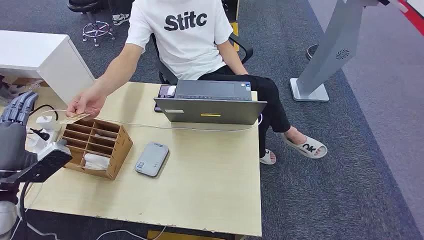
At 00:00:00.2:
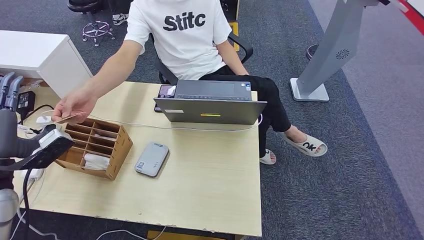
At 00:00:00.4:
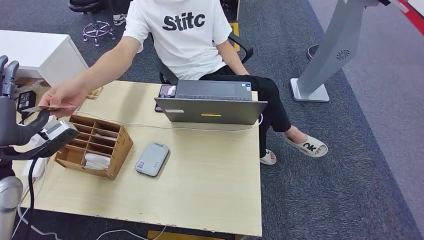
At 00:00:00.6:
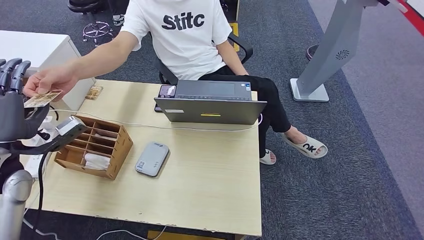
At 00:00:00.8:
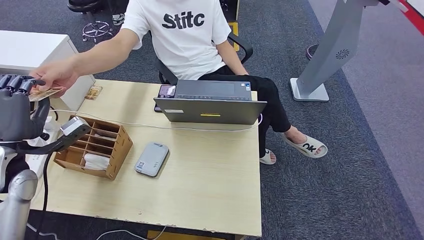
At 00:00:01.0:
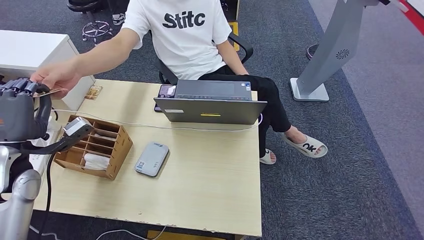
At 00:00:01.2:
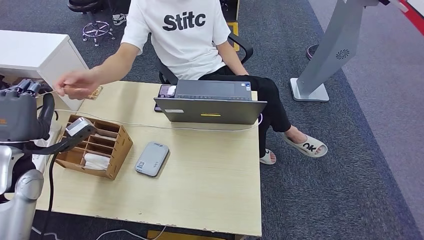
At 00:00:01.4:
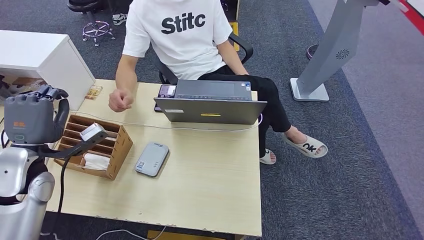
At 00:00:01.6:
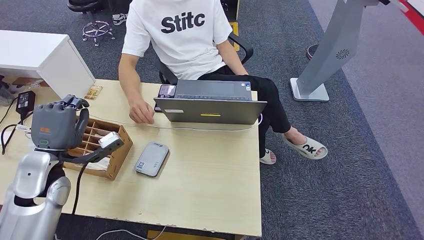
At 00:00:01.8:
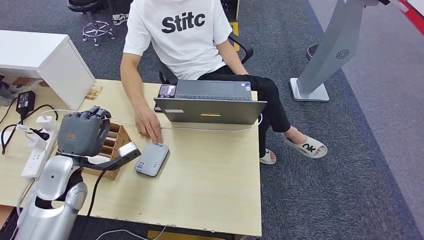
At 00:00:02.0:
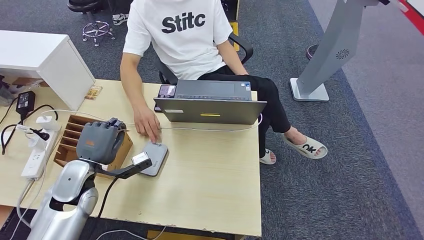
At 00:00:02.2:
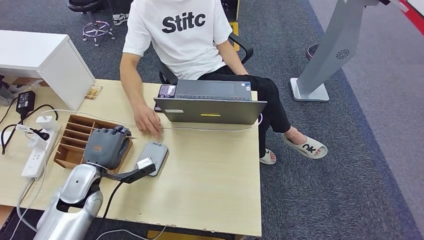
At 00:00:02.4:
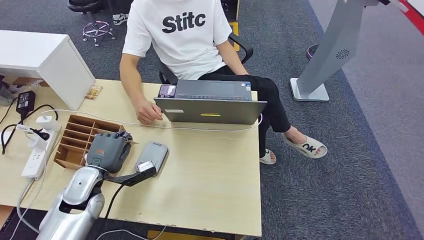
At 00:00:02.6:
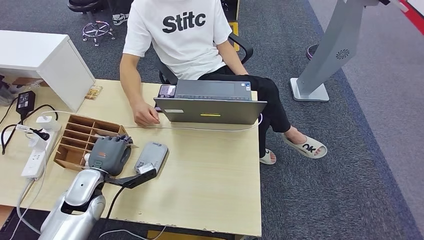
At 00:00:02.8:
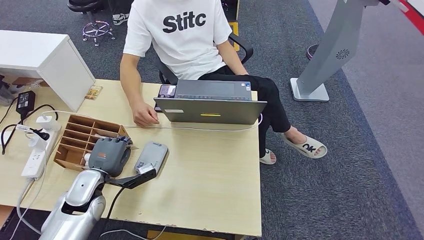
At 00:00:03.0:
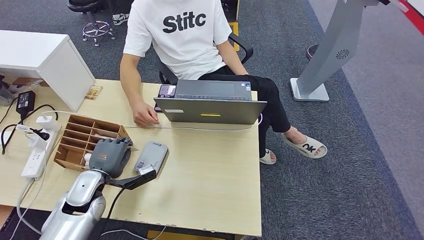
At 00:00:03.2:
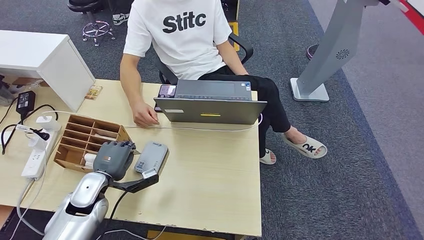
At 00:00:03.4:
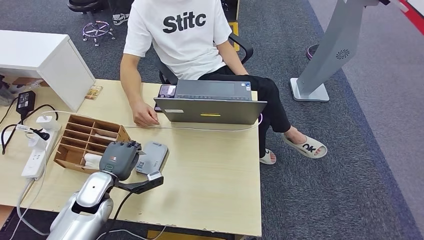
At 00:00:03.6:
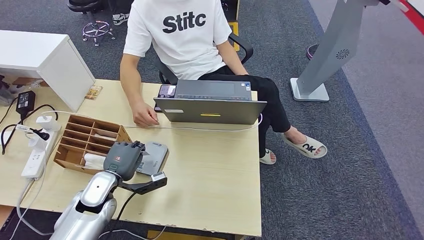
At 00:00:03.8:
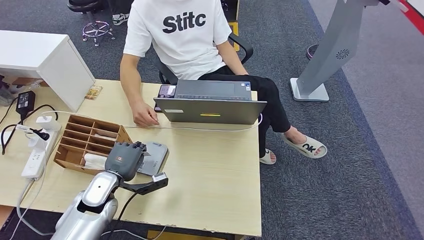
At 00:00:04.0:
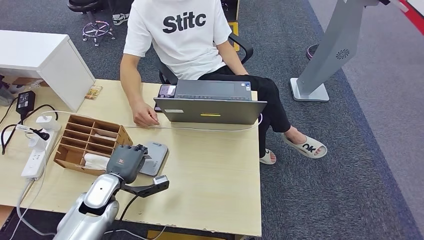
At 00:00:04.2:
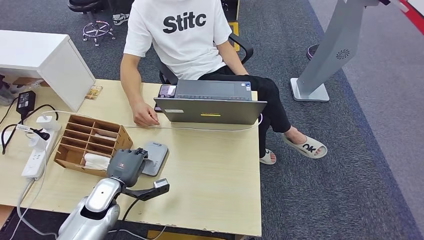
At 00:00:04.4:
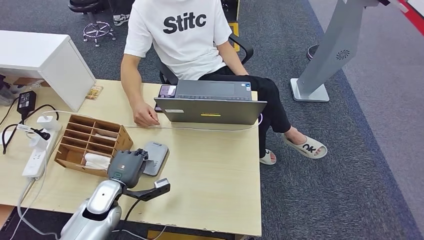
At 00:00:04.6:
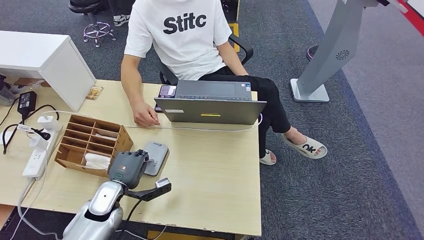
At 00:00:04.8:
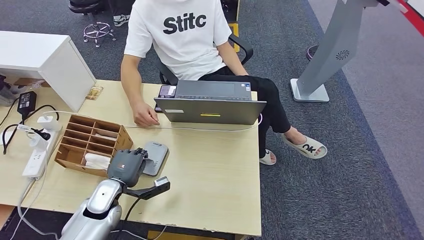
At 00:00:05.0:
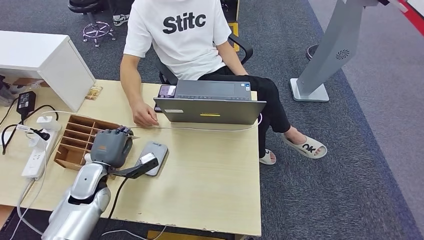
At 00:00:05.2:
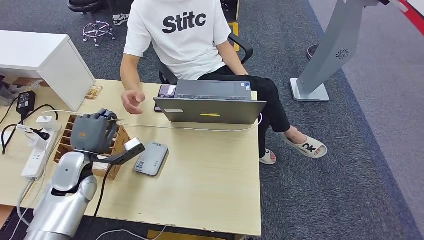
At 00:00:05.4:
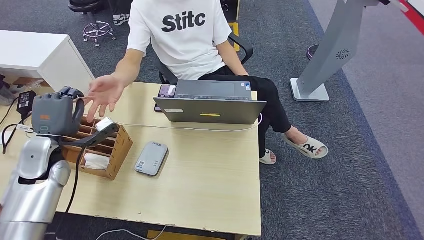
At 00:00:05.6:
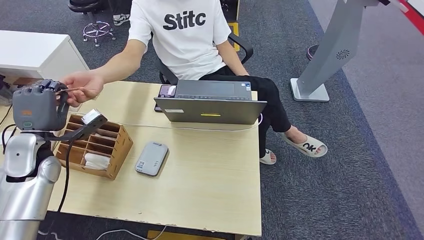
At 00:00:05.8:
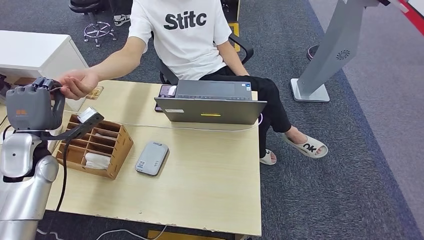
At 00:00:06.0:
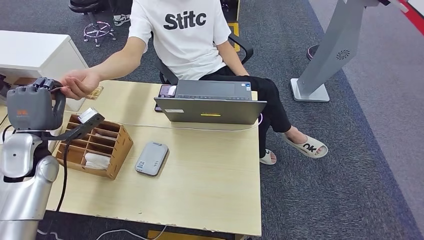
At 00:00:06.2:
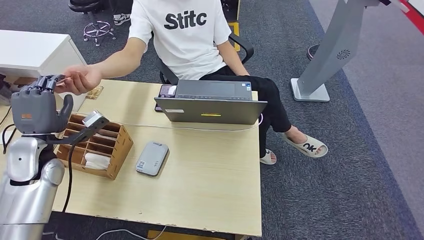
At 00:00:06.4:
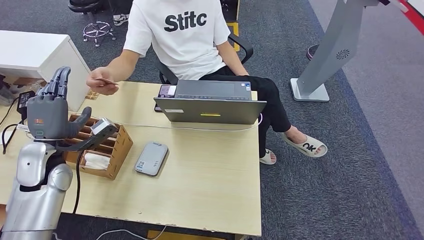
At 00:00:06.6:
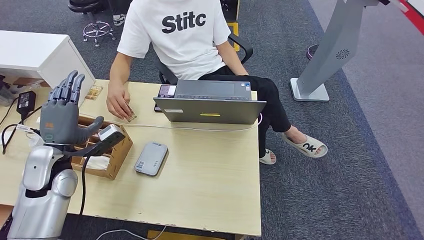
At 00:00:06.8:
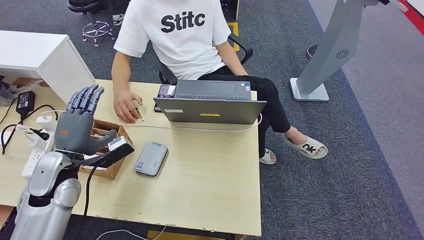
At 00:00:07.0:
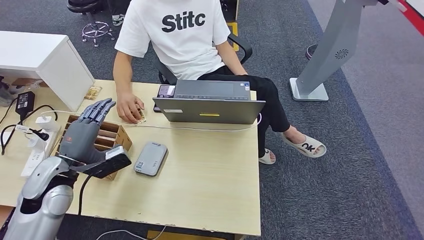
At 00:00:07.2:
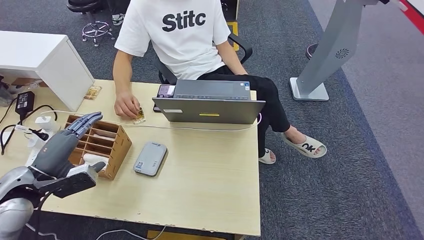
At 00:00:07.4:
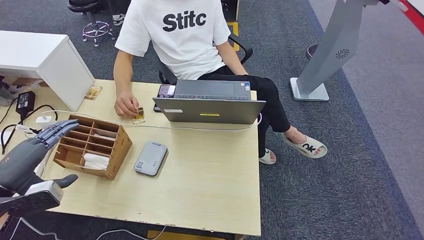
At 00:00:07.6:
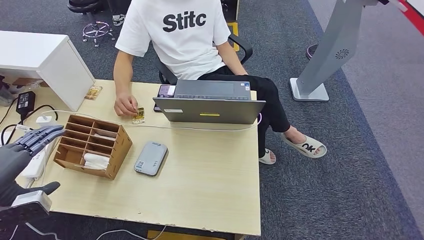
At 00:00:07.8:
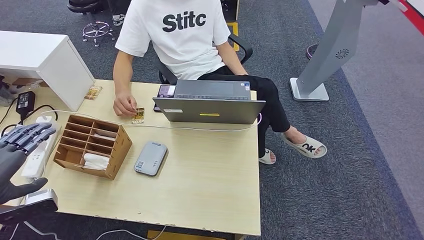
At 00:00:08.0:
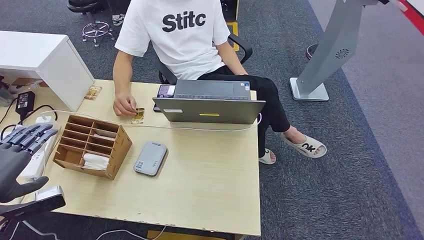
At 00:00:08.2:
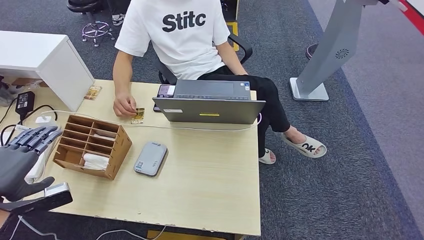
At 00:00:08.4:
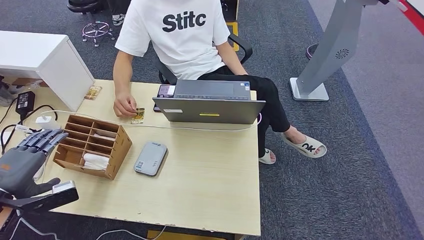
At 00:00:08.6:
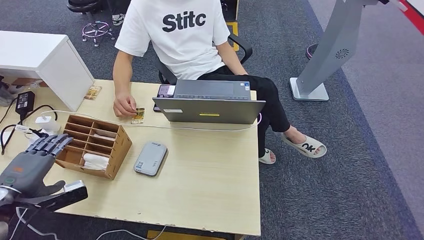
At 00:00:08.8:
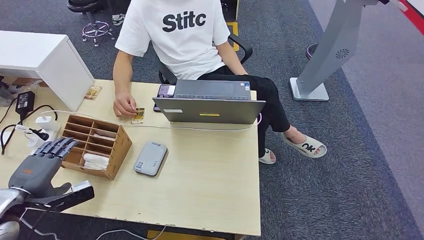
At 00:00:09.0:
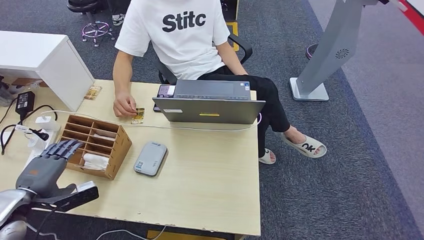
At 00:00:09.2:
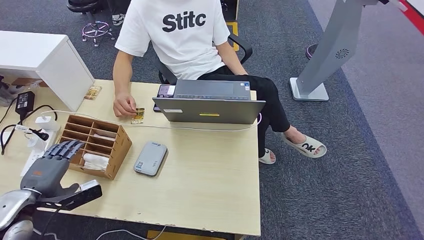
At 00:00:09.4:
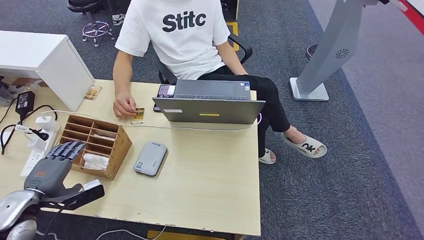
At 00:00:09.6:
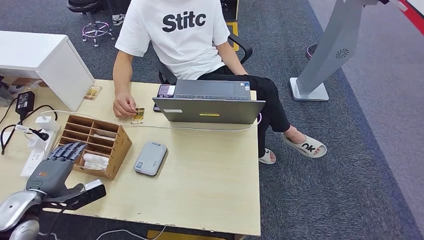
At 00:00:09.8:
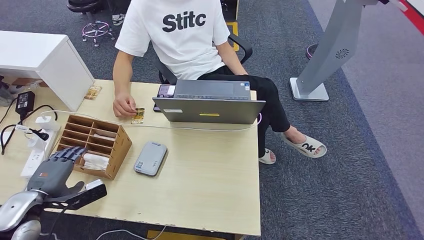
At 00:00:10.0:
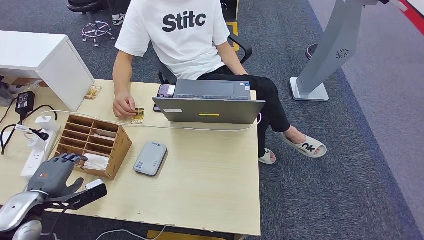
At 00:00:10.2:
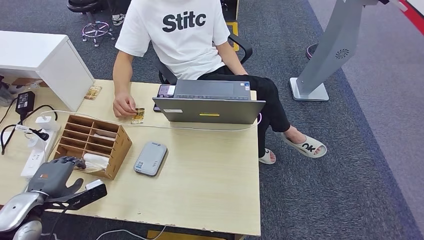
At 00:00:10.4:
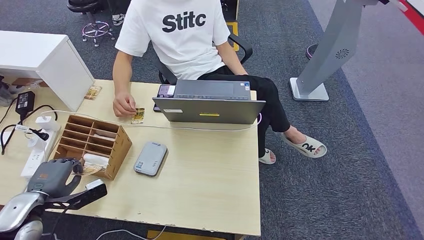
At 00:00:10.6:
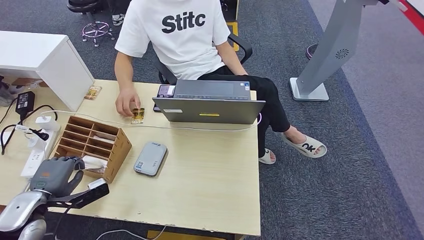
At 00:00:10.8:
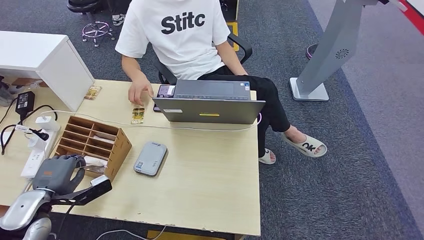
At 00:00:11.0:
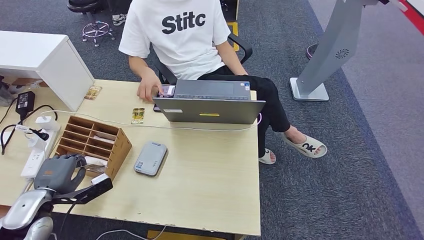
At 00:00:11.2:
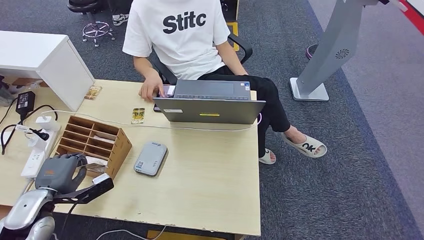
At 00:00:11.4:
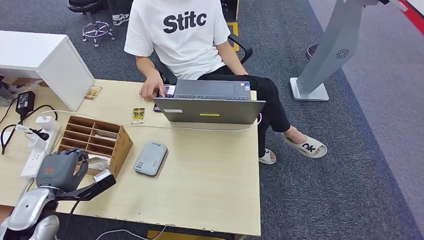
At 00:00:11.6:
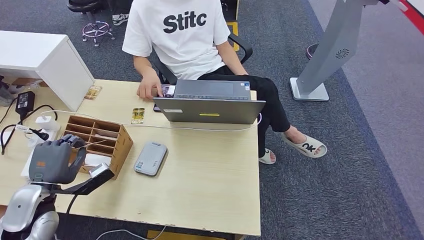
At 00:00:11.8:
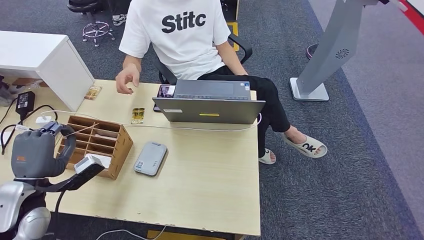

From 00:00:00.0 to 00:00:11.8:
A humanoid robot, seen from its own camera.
Step, from 00:00:00.0 to 00:00:01.4: Take the ID card from the person's hand.
Step, from 00:00:01.6 to 00:00:05.2: Place the ID card on the card reader.
Step, from 00:00:05.4 to 00:00:08.0: Hand the ID card to the person.
Step, from 00:00:08.2 to 00:00:10.6: Pick up the room key from the key card box.
From 00:00:01.4 to 00:00:03.0: The left hand heads downward and to the right, covering some 15 cm.
From 00:00:03.0 to 00:00:04.4: The left hand moves approximately 5 cm.
From 00:00:04.4 to 00:00:06.0: The left hand goes roughly 20 cm upward, to the left and forward.
From 00:00:06.0 to 00:00:07.4: The left hand travels backward and to the left by some 15 cm.
From 00:00:07.4 to 00:00:08.8: The left hand is displaced downward by some 5 cm.
From 00:00:08.8 to 00:00:10.4: The hands make only small movements.
From 00:00:10.4 to 00:00:11.8: The left hand moves upward, roughly 5 cm.

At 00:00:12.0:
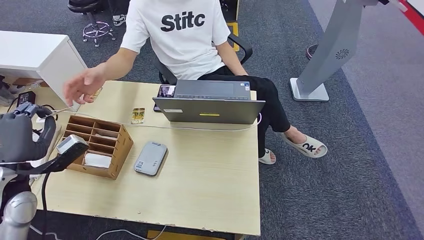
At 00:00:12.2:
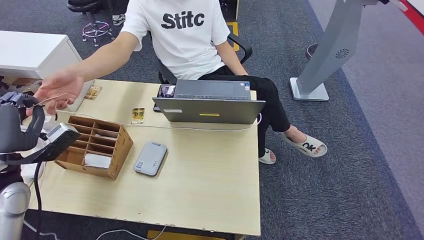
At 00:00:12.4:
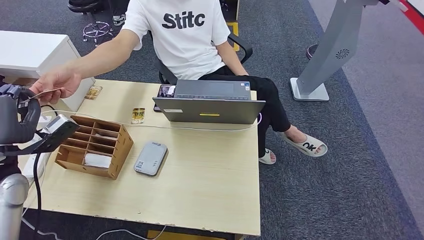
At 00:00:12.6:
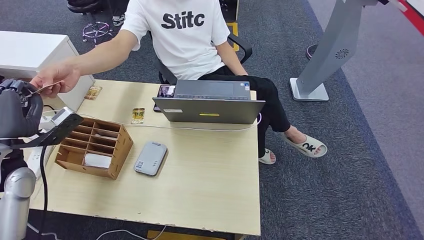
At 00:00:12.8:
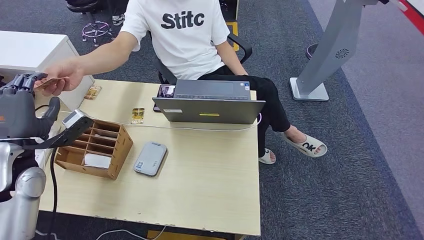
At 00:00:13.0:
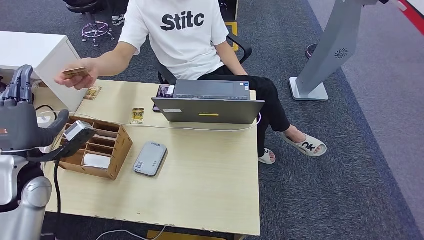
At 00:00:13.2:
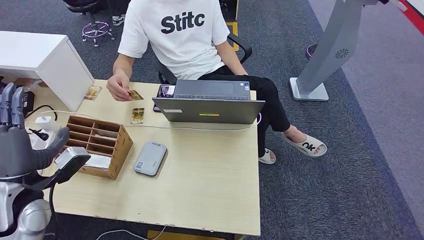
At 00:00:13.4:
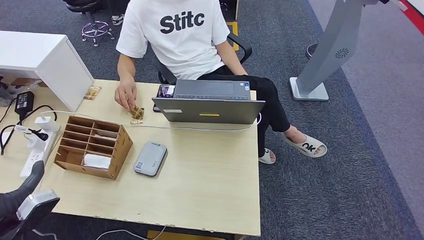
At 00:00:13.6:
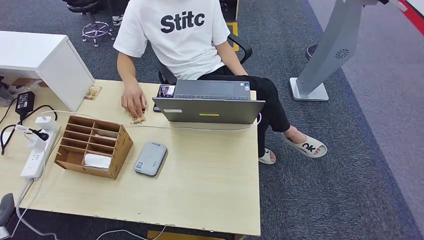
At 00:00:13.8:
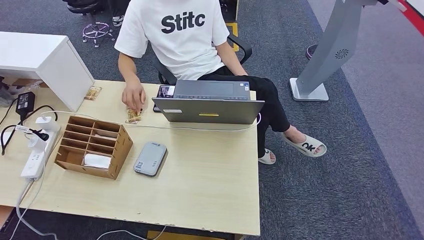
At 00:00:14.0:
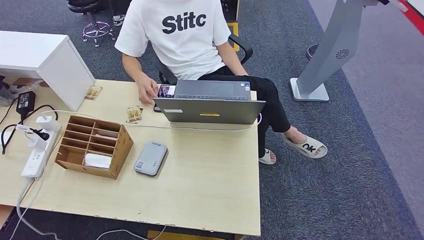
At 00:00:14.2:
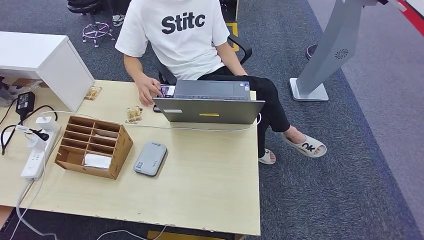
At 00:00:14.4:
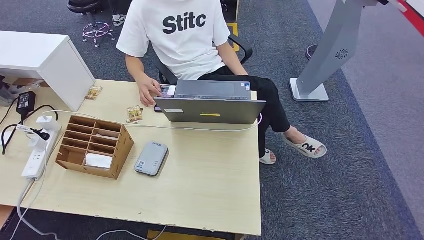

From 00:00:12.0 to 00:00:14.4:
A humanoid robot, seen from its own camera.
Step, from 00:00:12.0 to 00:00:14.4: Hand the room key to the person.
From 00:00:12.0 to 00:00:13.2: The hands stay close to where they were, moving slightly.
From 00:00:13.2 to 00:00:14.4: The left hand goes about 40 cm downward and backward.
